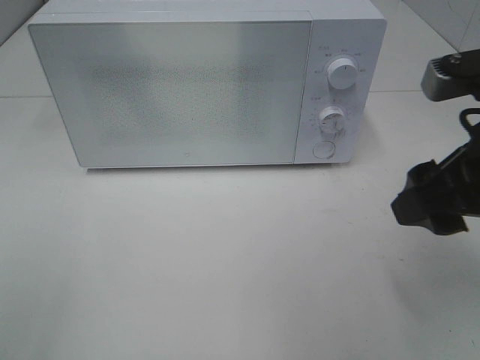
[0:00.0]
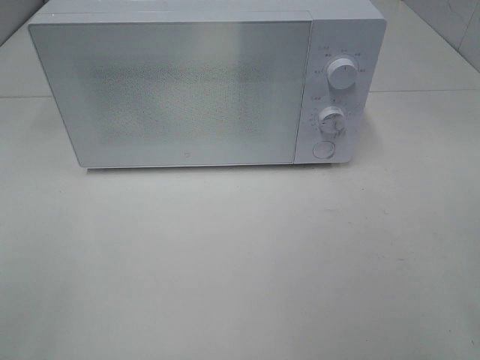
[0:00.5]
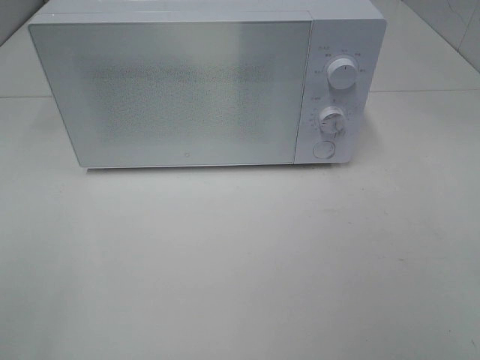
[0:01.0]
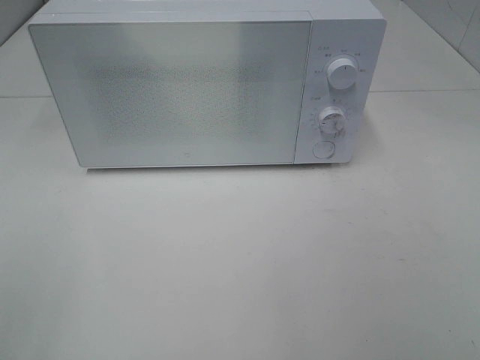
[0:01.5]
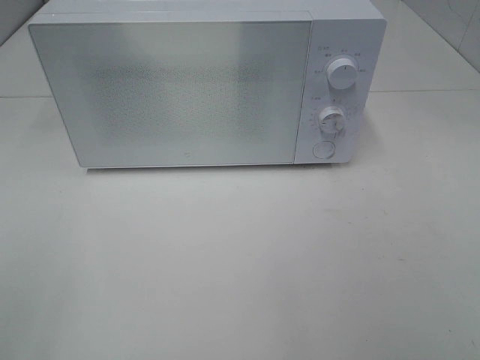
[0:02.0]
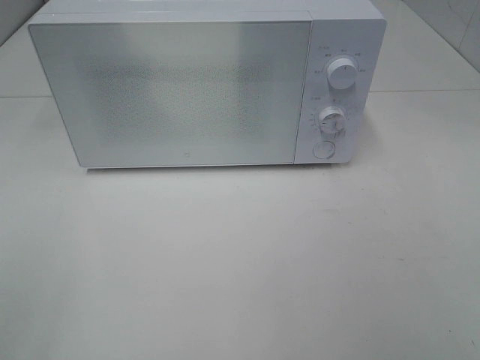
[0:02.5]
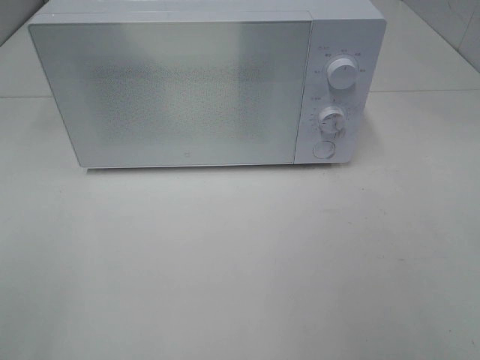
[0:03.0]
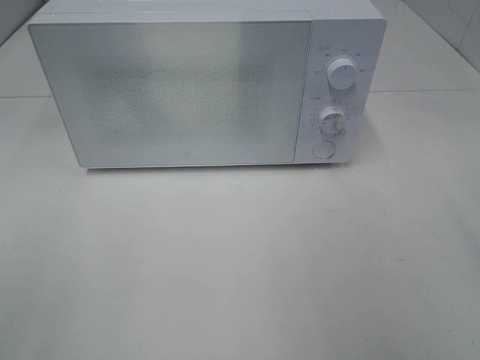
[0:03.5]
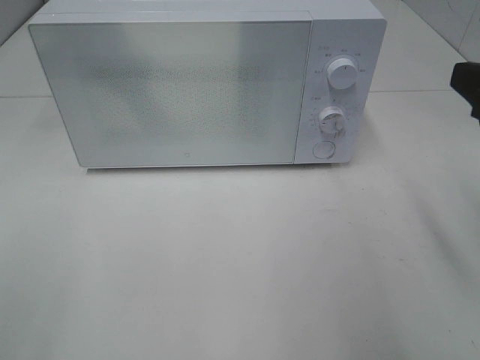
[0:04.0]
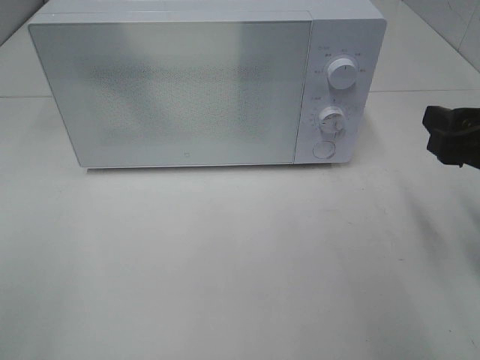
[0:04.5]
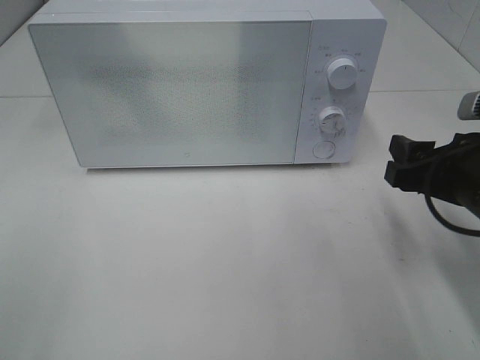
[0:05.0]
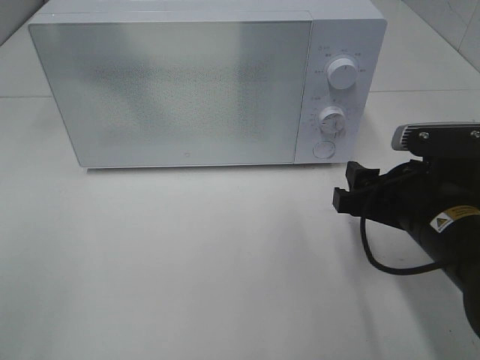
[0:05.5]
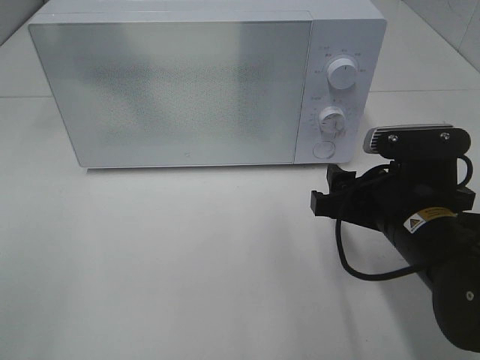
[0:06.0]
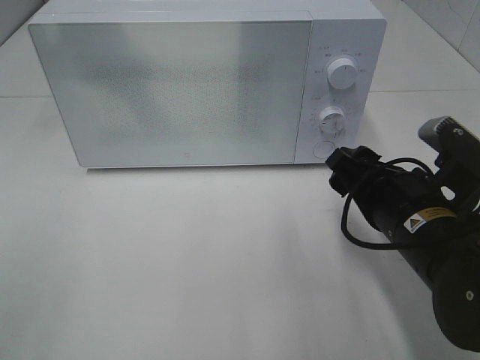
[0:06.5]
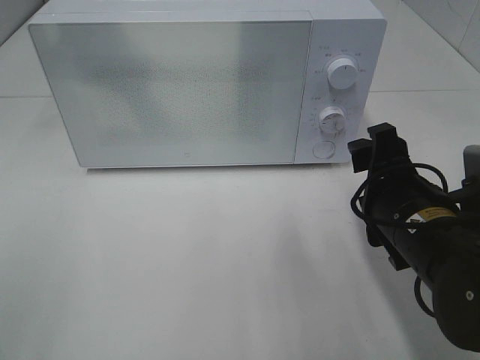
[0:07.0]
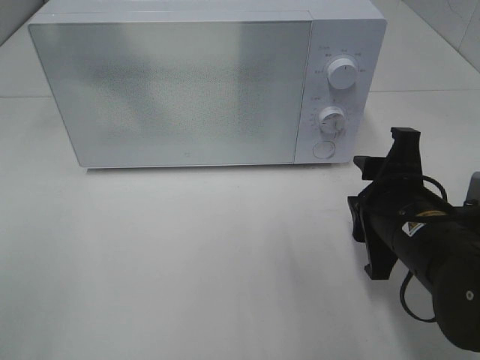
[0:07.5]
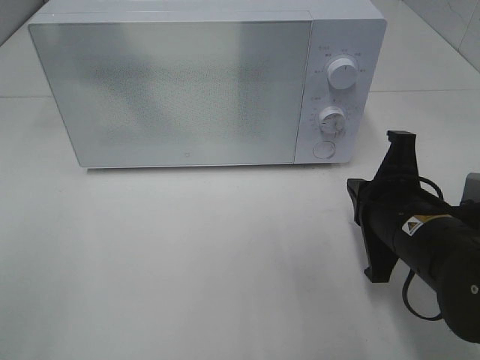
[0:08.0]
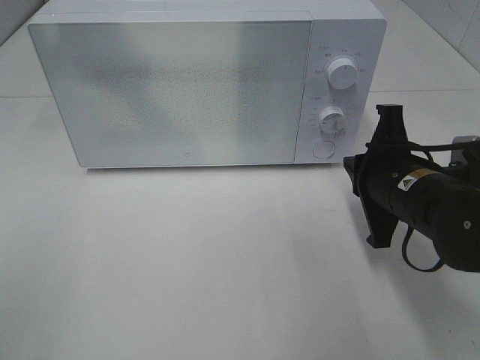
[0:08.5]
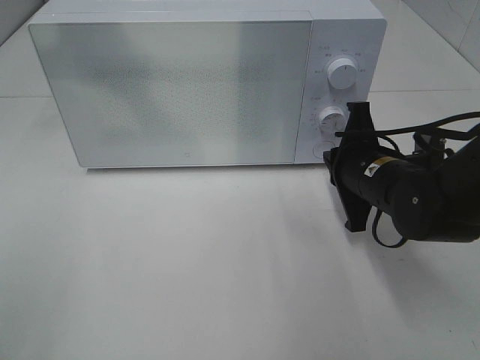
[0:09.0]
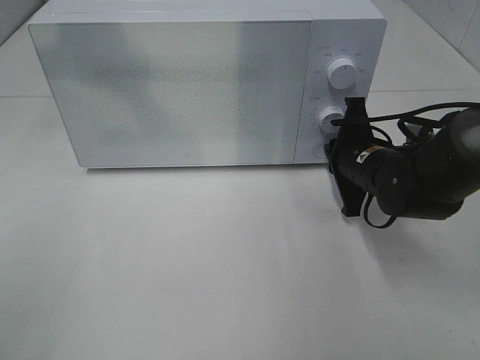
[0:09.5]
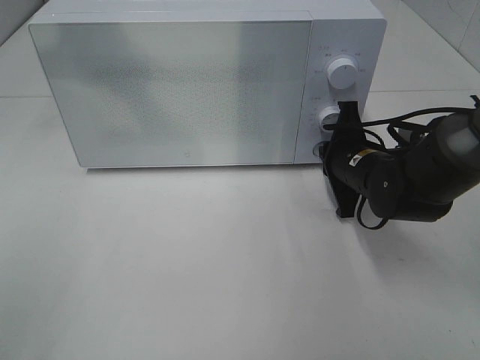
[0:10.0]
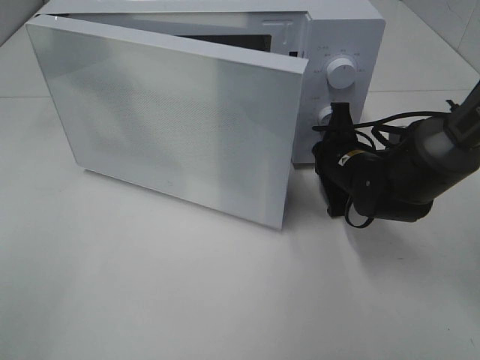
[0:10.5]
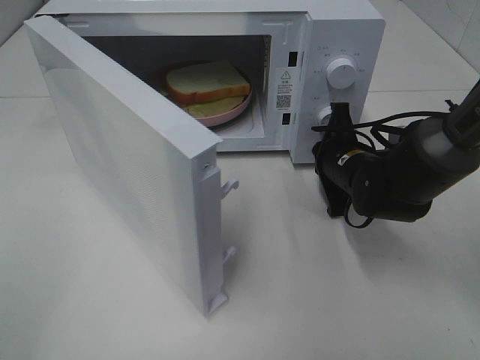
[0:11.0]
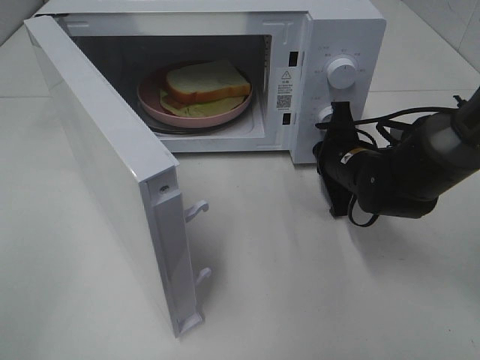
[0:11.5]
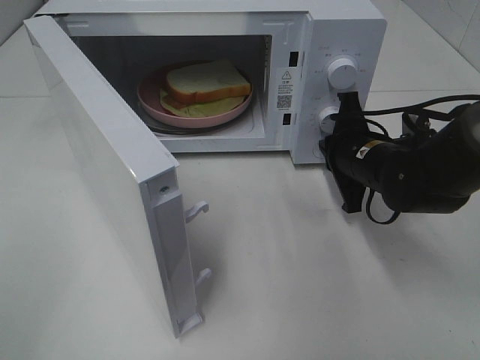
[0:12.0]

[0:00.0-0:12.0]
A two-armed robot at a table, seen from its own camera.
Task of the whole recording: Heat Sandwich.
0:00.0 to 0:02.0: The right gripper heads backward and to the right, covering about 20 cm.
0:02.0 to 0:04.0: The right gripper moves forward, about 20 cm.
0:04.0 to 0:06.0: The right gripper shifts roughly 15 cm downward and to the left.
0:06.0 to 0:08.0: The right gripper closes up.
0:08.0 to 0:10.0: The right gripper moves forward, approximately 15 cm.

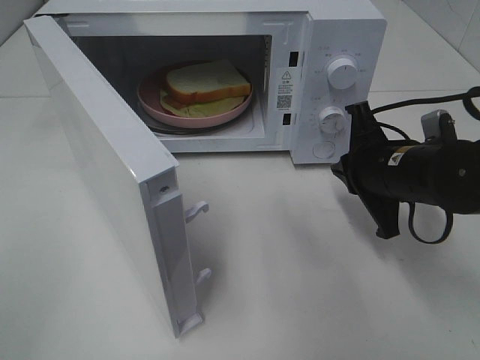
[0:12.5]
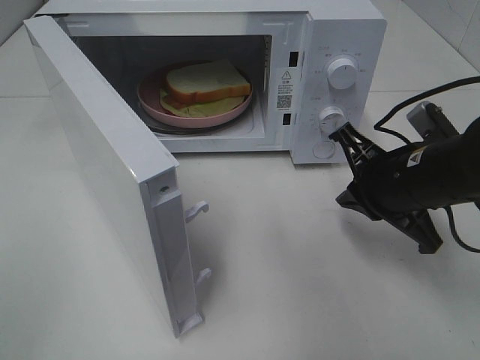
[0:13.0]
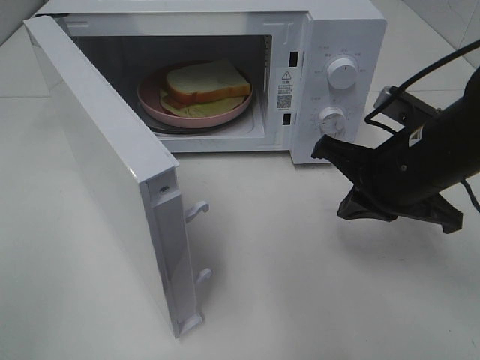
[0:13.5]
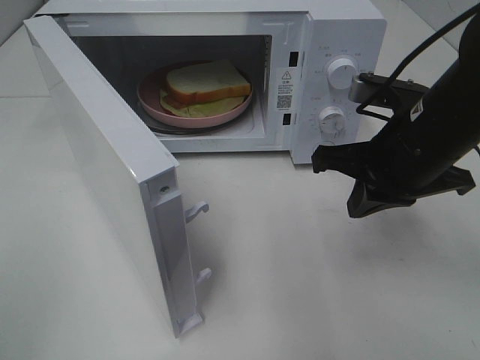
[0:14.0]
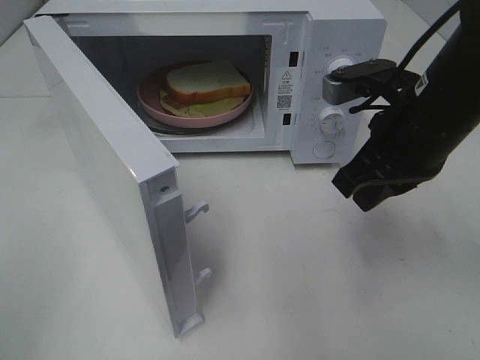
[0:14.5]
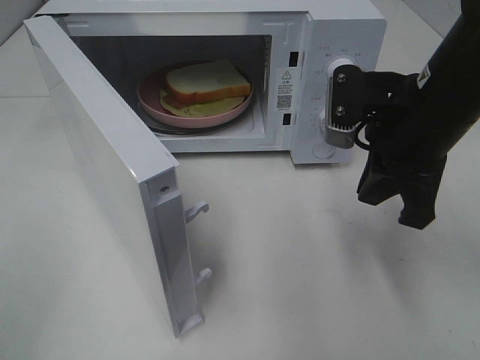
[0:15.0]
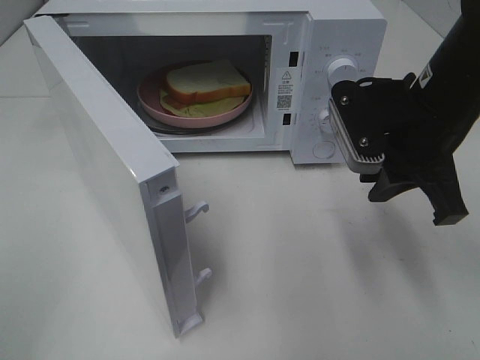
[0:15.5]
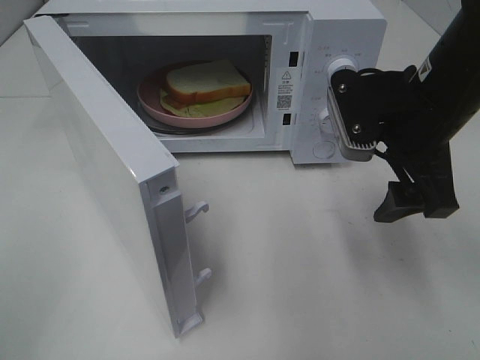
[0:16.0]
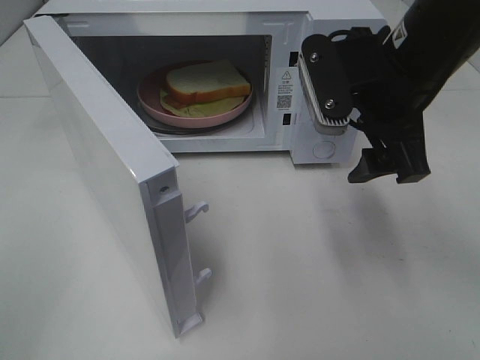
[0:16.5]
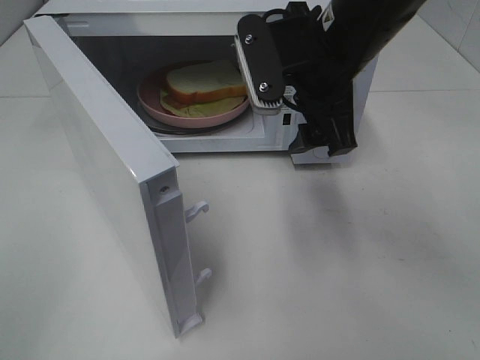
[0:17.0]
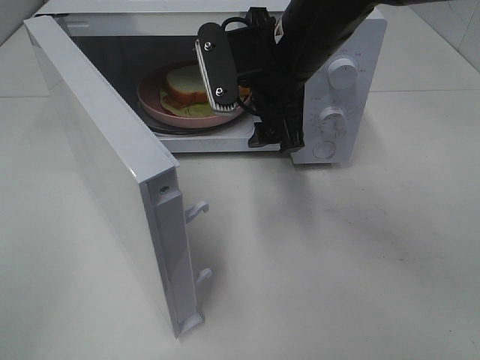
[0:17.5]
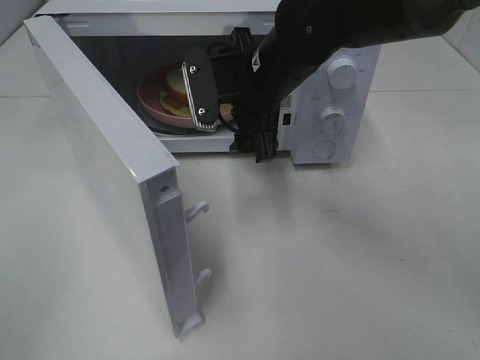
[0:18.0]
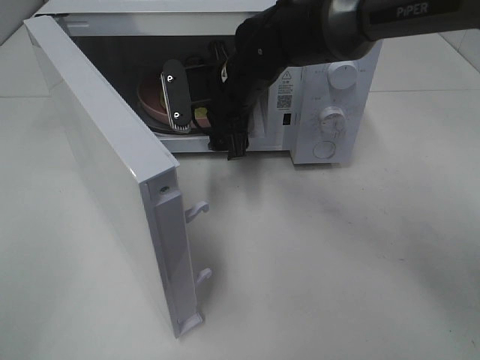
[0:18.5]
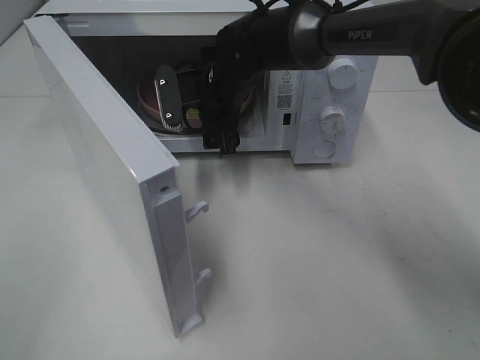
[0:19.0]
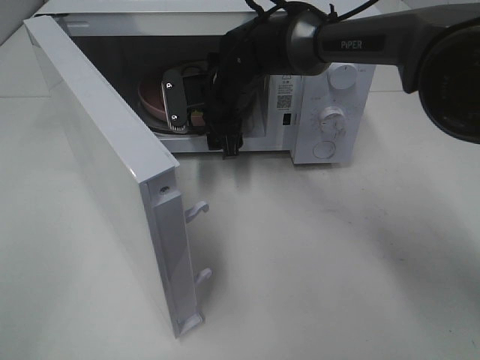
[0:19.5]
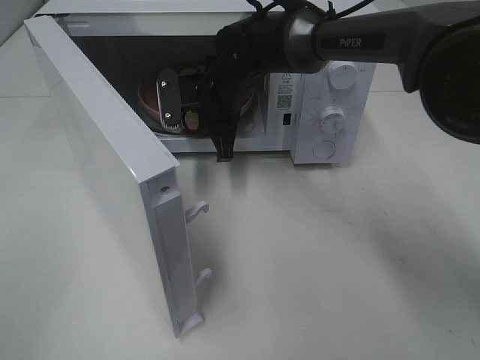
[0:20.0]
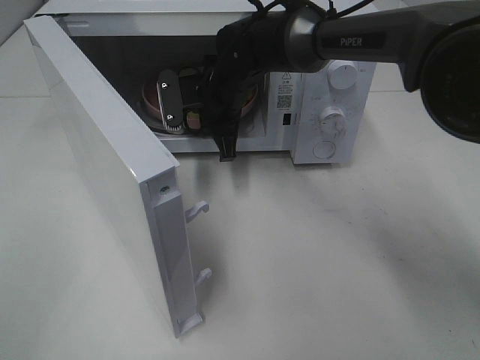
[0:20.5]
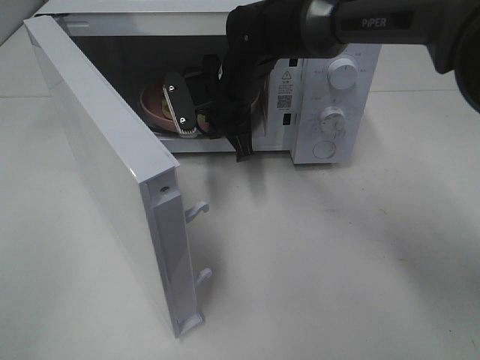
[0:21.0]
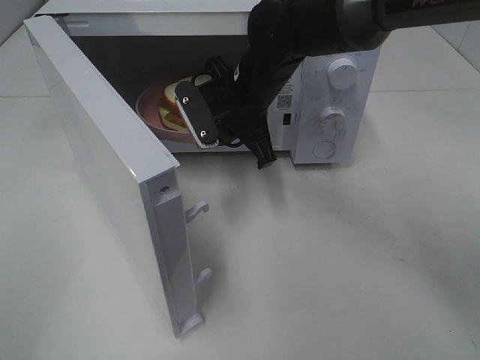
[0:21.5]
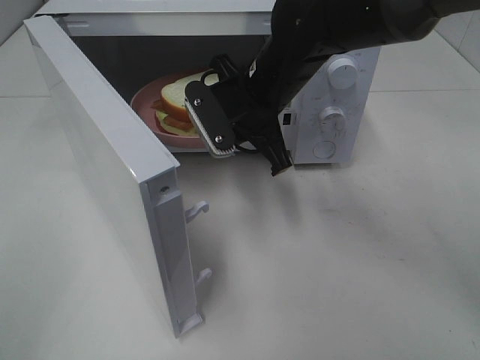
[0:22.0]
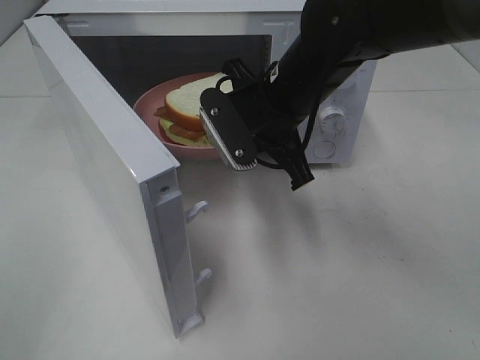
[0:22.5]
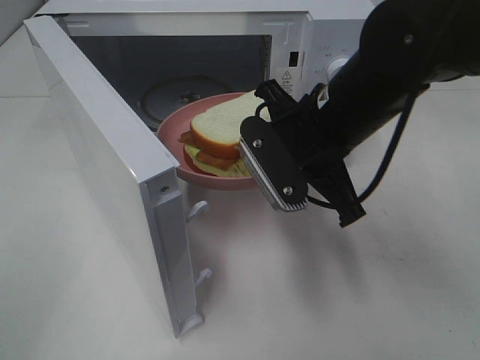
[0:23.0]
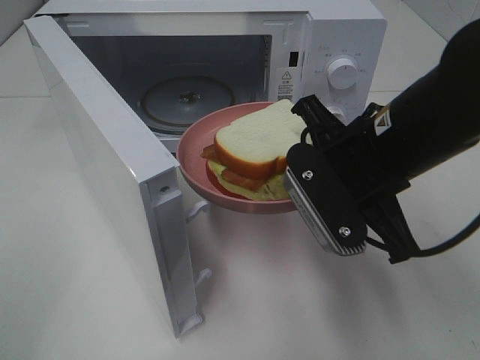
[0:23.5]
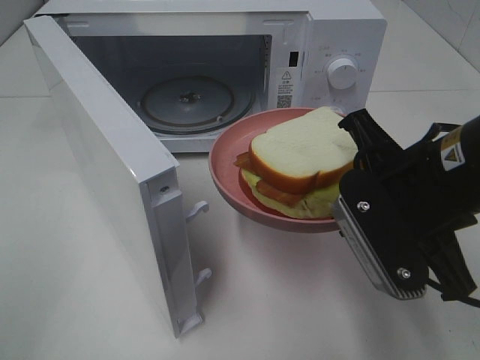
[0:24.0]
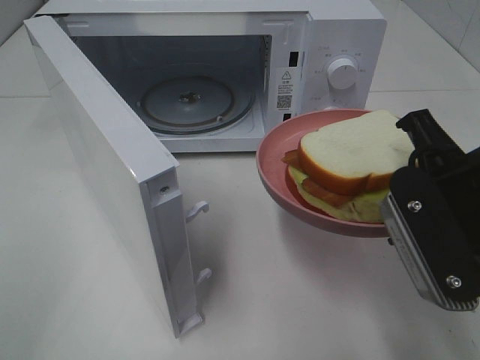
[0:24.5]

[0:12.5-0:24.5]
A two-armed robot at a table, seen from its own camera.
Task of the whole recording: Heat Sandwich.
Step, 0:12.5 to 0:20.0: Right hand: grab the plate with the sandwich.
0:12.5 to 0:14.5: The right gripper travels upward by some 10 cm.
0:14.5 to 0:16.5: The right gripper changes place by some 5 cm, and opens its fingers.
0:16.5 to 0:18.5: The right gripper shifts about 20 cm to the left, forward and downward.
0:18.5 to 0:20.5: The right gripper closes up.
0:20.5 to 0:22.5: The right gripper heads backward, to the right and upward, covering approximately 15 cm.
0:22.5 to 0:24.5: The right gripper is displaced backward and to the right by some 20 cm.

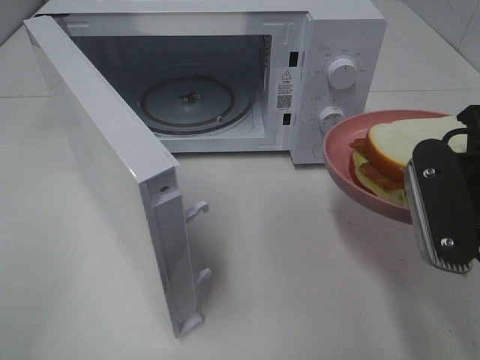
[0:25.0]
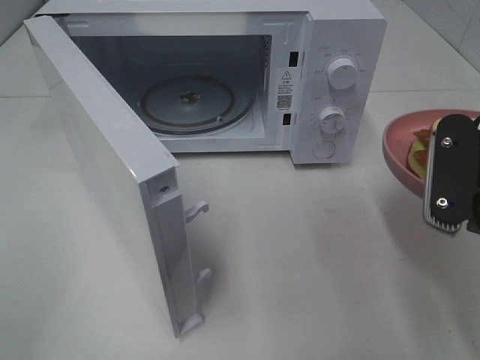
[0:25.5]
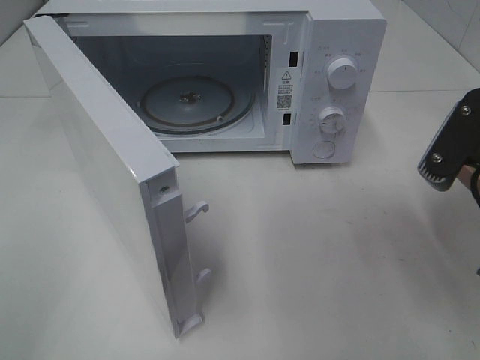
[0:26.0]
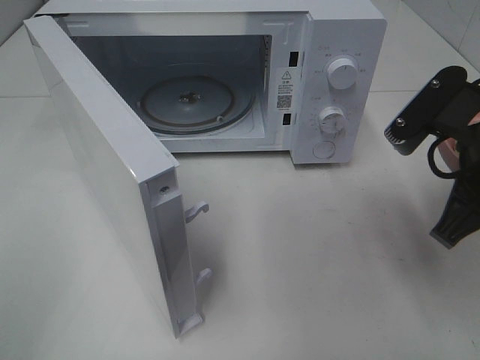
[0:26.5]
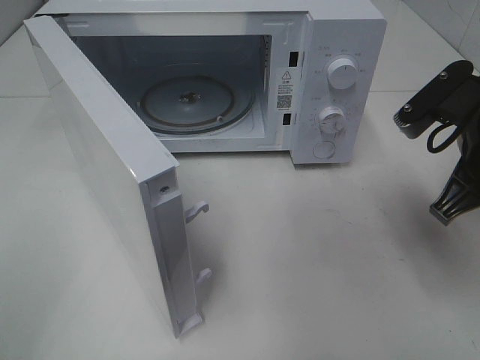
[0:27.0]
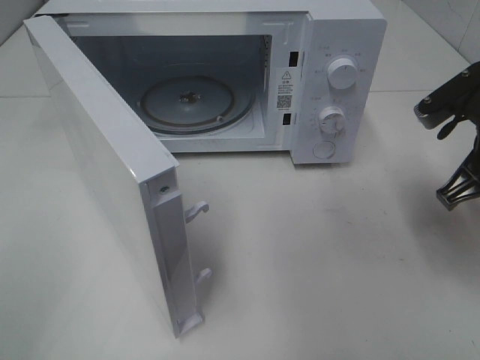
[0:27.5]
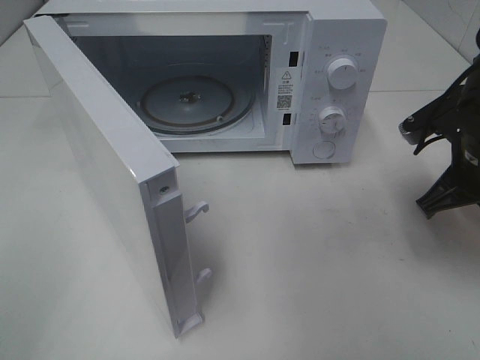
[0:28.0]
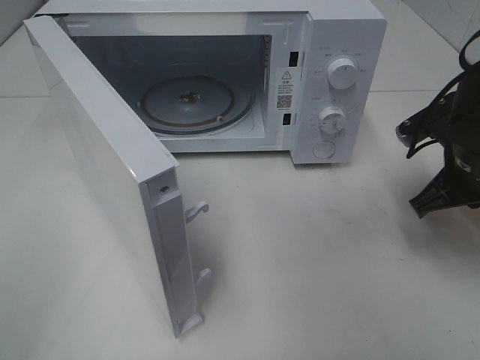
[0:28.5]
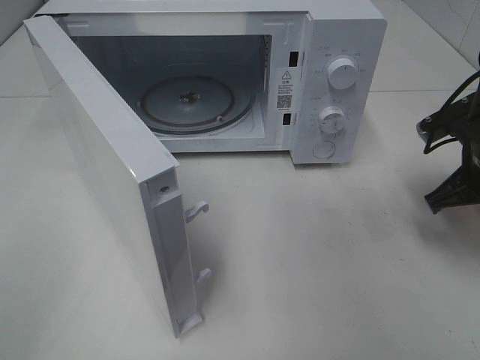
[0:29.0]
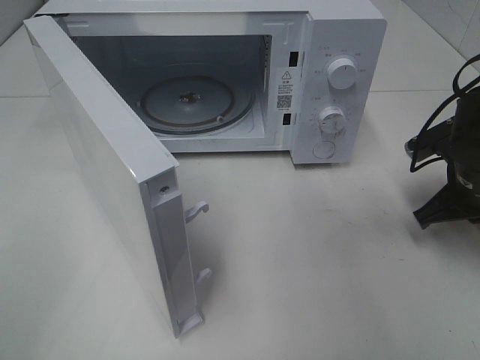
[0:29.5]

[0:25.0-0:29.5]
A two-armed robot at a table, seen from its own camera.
Task of the whole recording: Heat Sandwich.
0:25.0 to 0:27.0: The right gripper moves forward, approximately 5 cm.
0:27.0 to 0:29.5: The right gripper moves downward, forward and to the right, approximately 15 cm.
